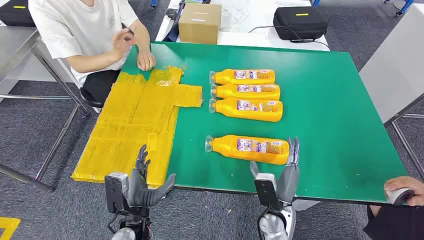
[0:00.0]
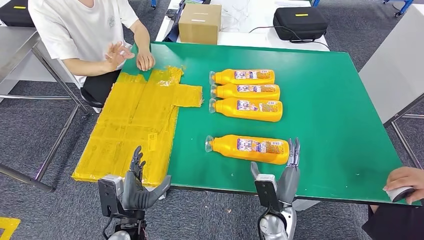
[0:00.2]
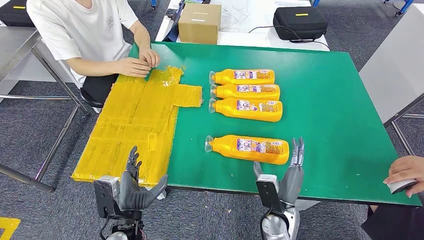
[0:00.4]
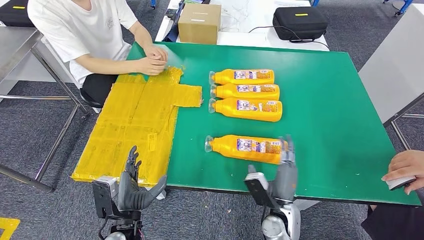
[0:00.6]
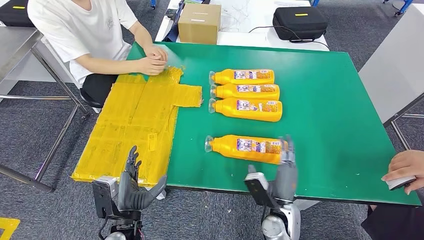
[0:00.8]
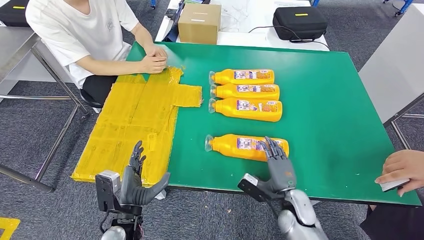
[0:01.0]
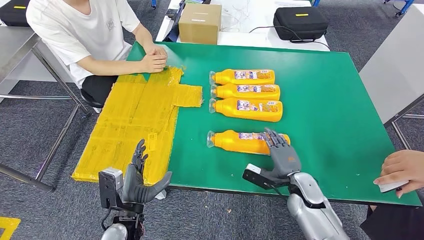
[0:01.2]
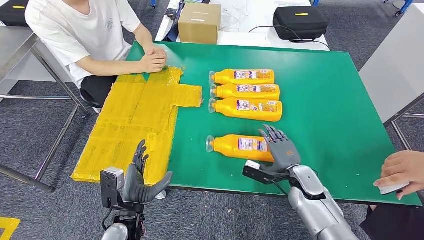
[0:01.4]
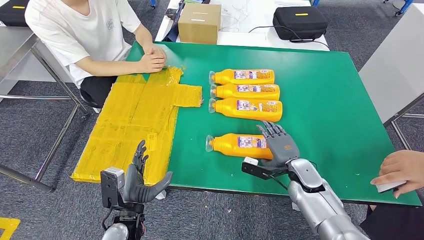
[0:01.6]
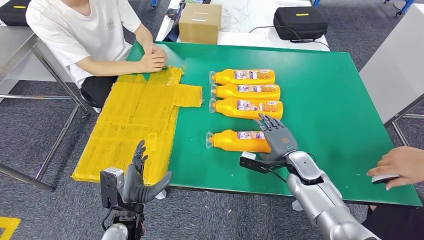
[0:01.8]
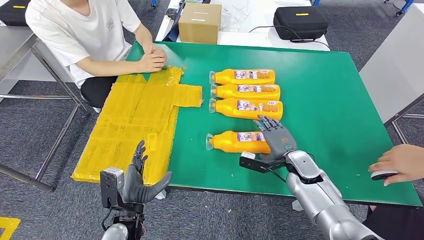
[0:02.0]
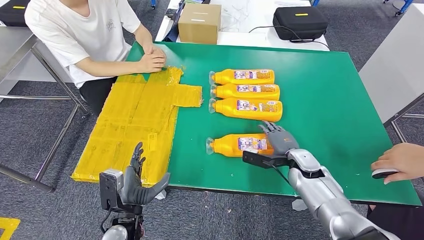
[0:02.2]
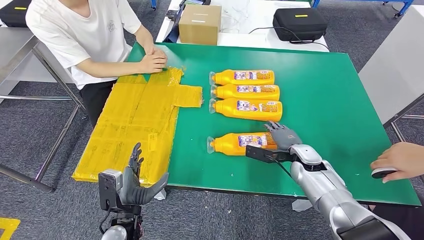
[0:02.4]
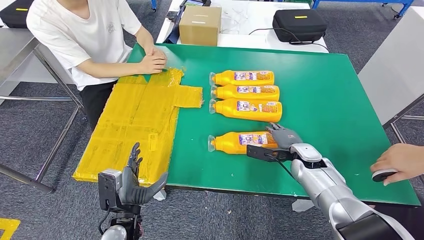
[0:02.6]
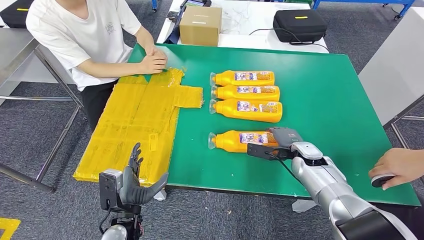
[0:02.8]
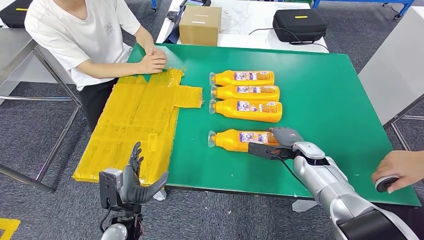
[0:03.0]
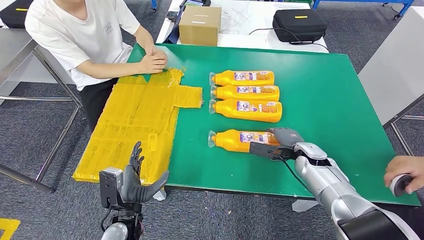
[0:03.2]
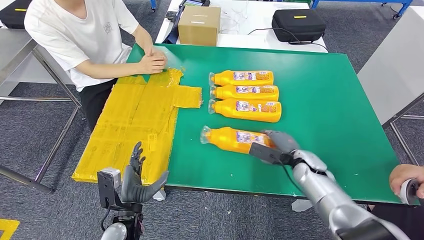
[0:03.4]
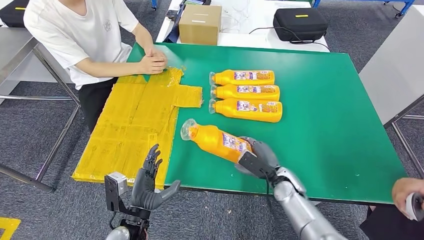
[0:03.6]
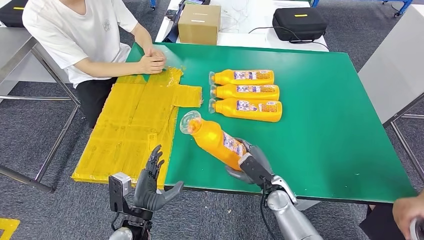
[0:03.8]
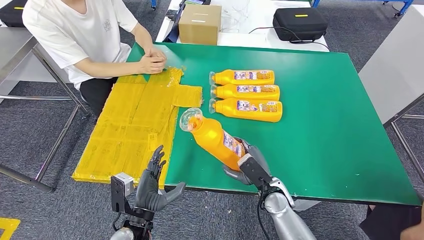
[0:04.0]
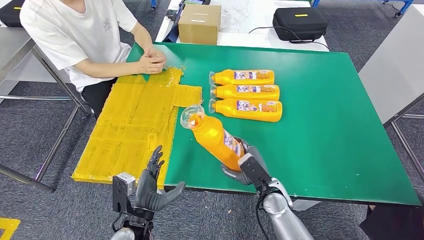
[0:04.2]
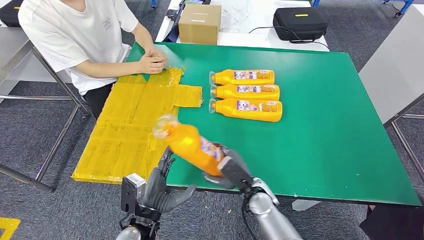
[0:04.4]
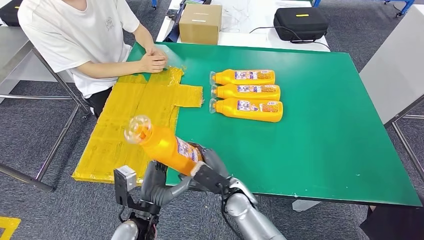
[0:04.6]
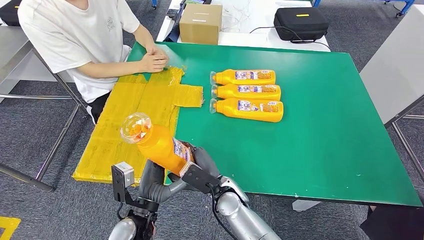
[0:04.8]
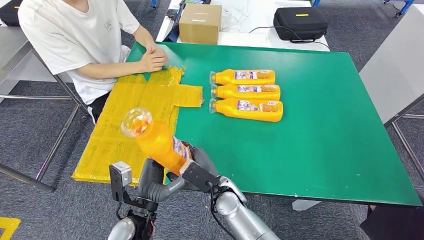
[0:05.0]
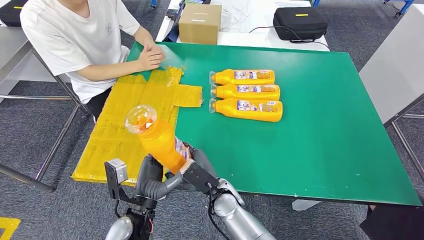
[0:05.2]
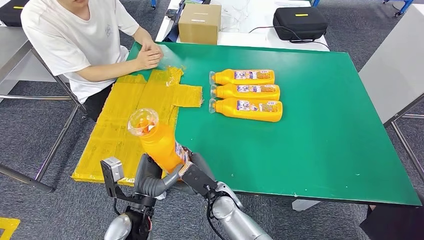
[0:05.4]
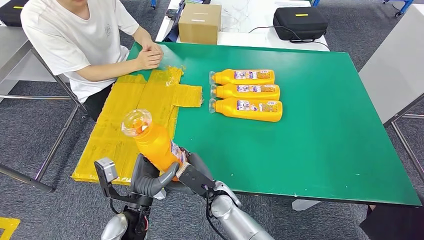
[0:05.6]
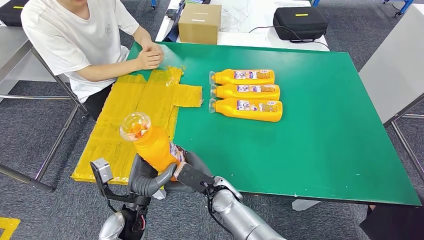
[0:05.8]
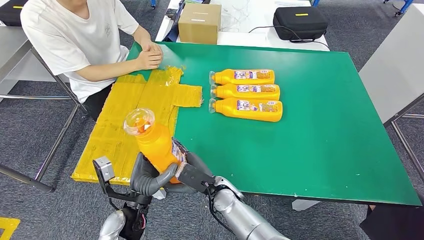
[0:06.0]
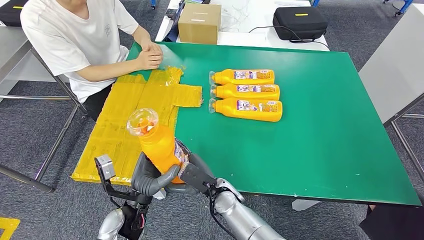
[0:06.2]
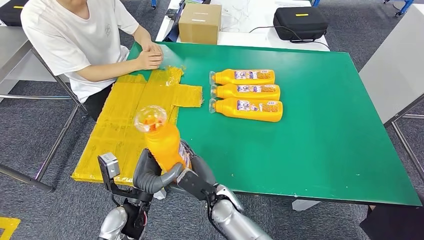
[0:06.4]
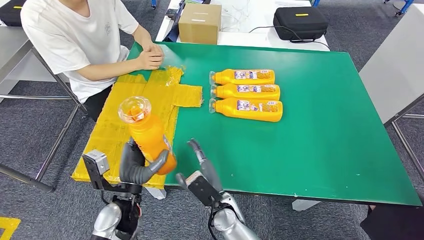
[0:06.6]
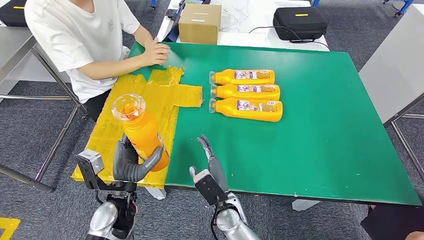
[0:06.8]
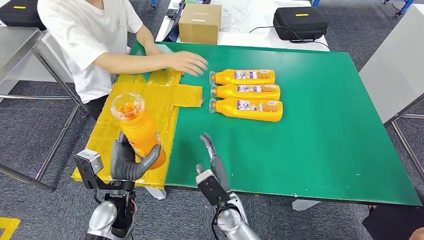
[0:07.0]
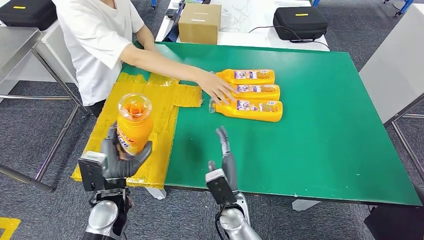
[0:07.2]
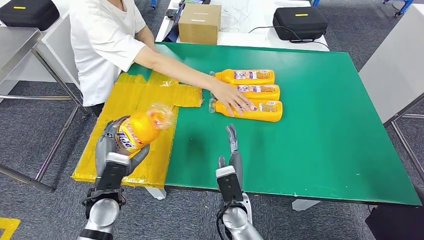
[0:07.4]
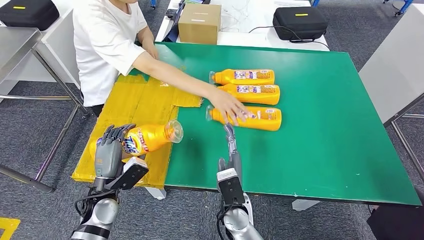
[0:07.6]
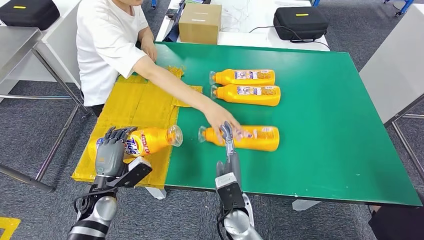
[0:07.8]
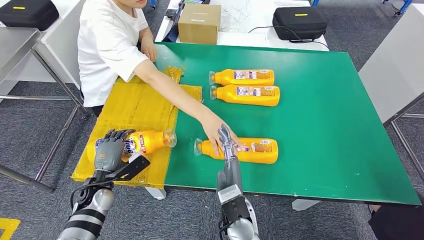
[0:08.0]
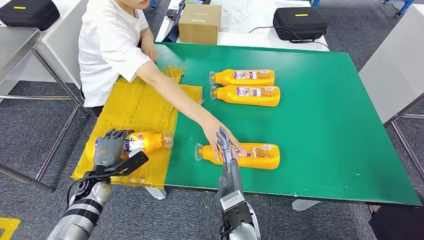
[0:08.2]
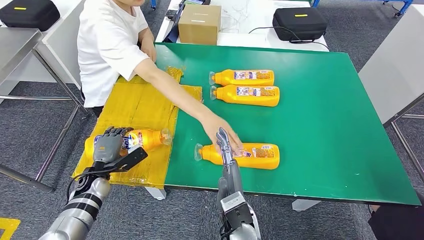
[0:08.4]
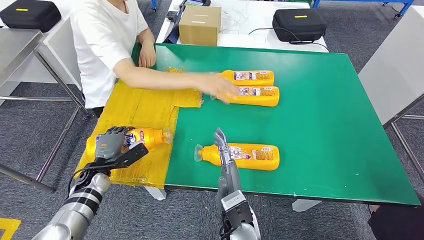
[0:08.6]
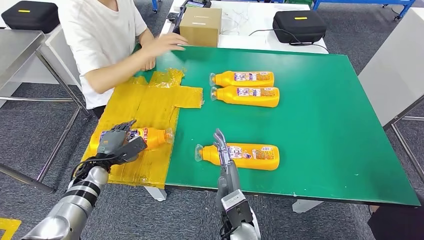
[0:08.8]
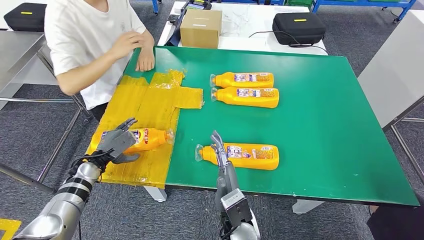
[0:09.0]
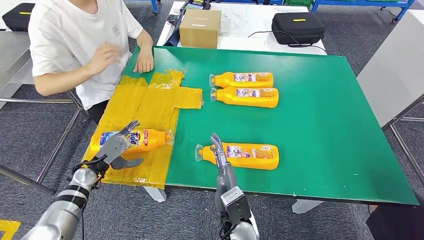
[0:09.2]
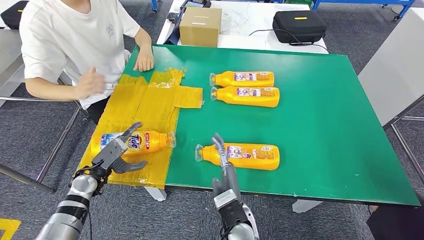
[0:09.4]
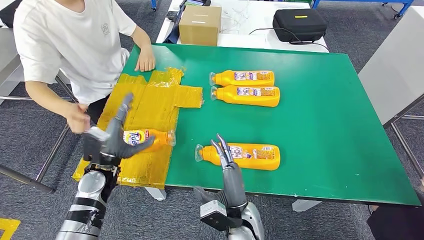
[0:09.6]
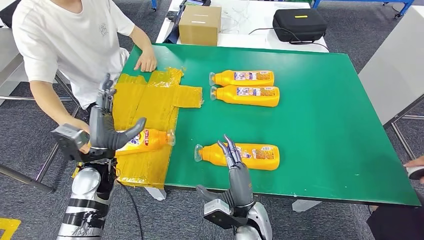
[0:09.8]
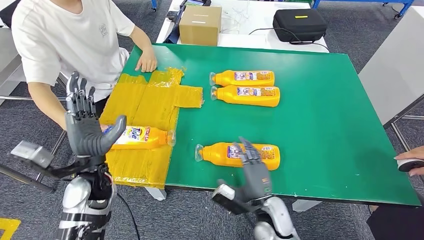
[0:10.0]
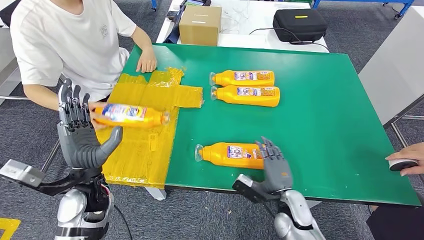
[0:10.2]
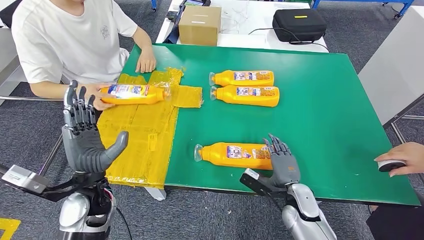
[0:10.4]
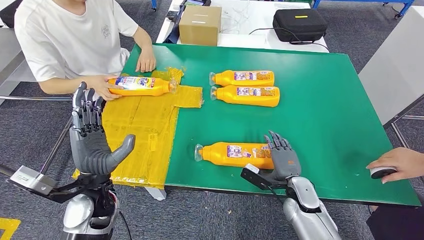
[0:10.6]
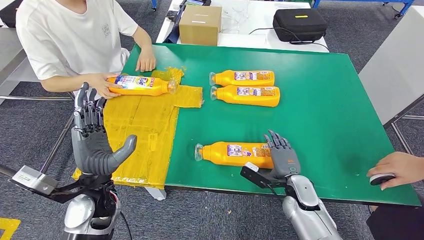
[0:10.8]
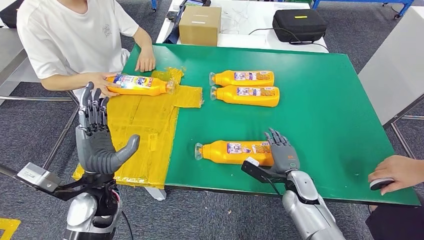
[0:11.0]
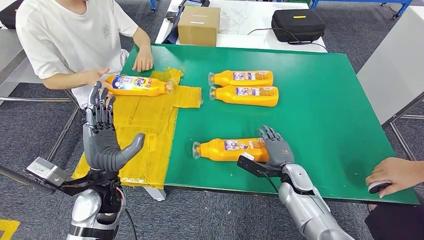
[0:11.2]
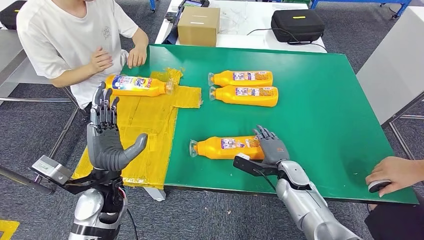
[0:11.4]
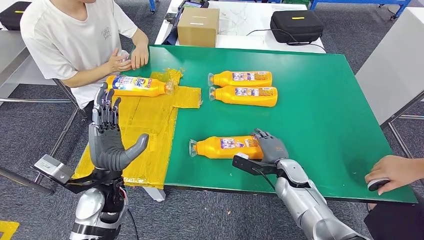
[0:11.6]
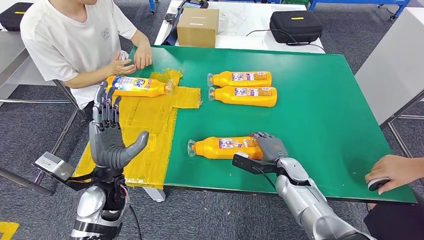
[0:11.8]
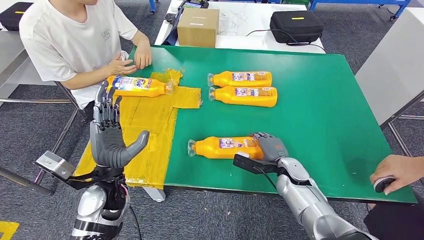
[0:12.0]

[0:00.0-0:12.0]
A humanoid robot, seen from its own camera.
Step, 0.0 to 5.2 s: Take the bottle from the table.
Step, 5.4 to 8.8 s: Flip the bottle to face forward.
1.6 to 3.0 s: The right hand goes about 5 cm forward.
4.4 to 6.0 s: The right hand moves to the left, some 10 cm.

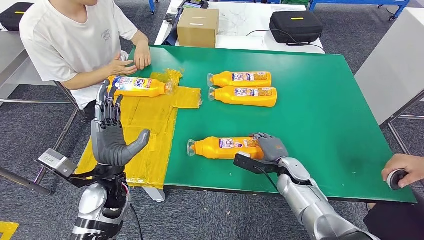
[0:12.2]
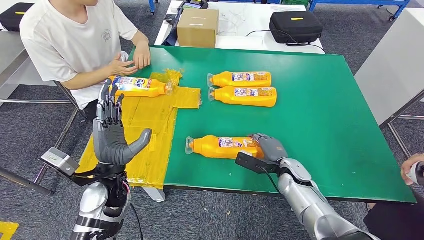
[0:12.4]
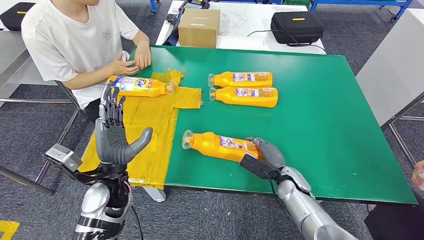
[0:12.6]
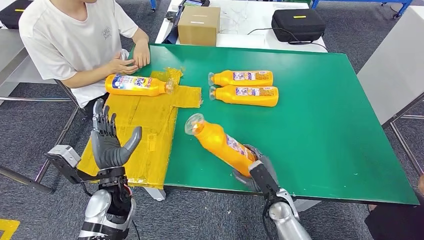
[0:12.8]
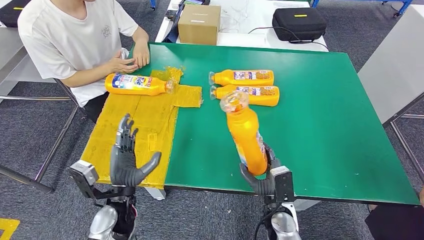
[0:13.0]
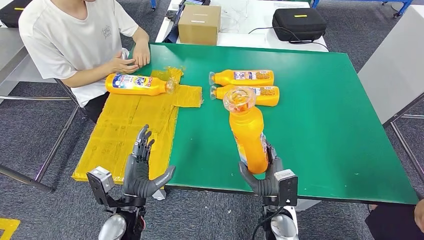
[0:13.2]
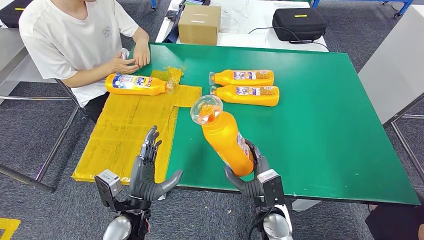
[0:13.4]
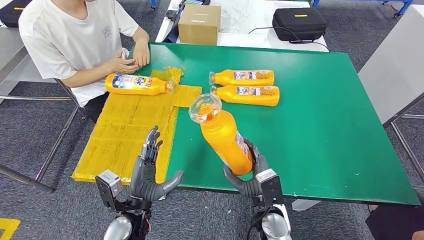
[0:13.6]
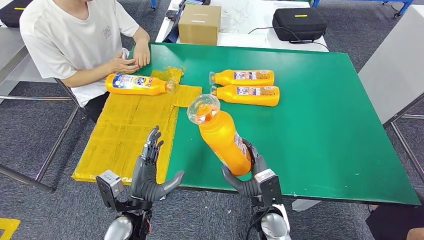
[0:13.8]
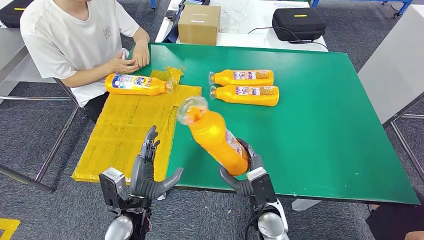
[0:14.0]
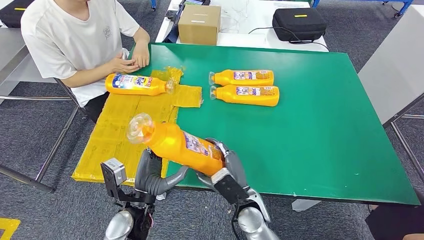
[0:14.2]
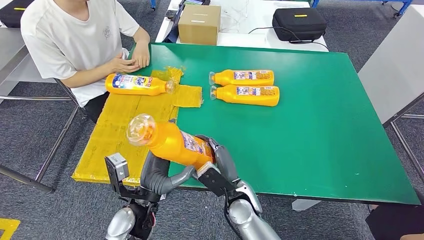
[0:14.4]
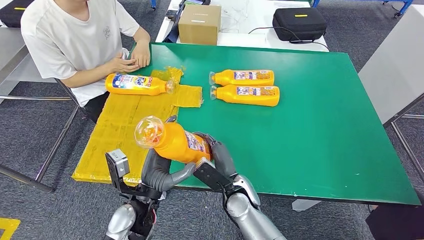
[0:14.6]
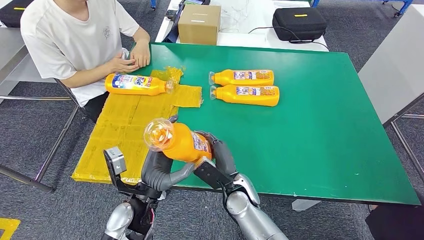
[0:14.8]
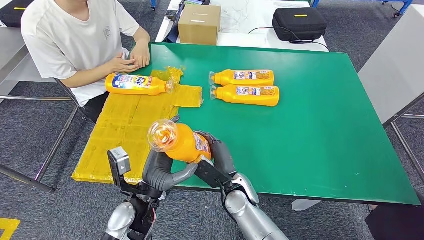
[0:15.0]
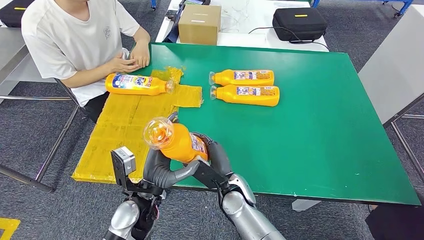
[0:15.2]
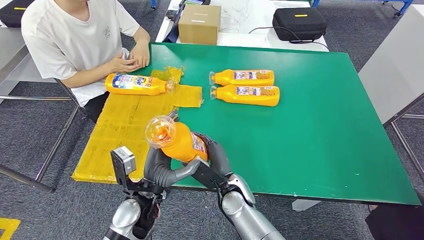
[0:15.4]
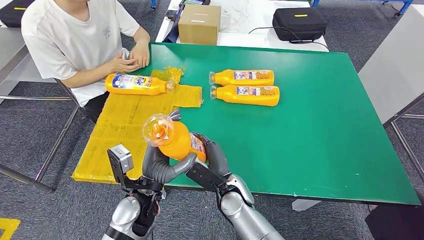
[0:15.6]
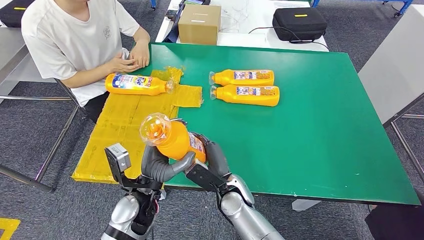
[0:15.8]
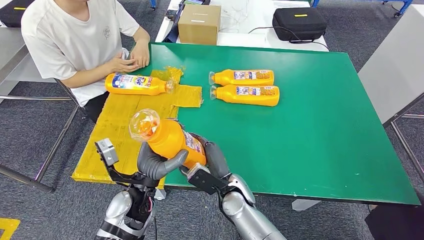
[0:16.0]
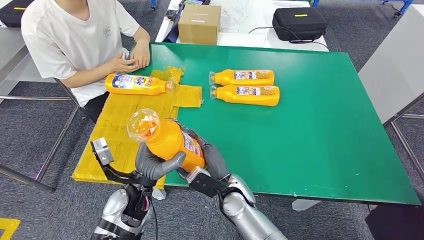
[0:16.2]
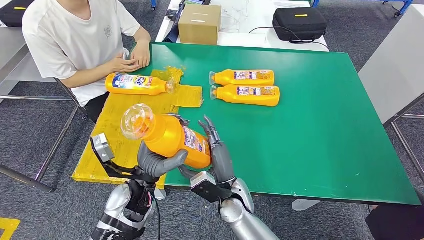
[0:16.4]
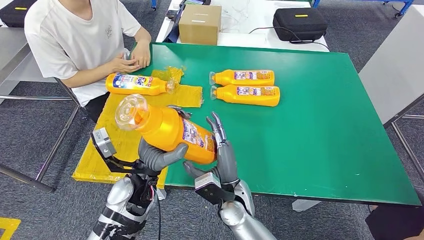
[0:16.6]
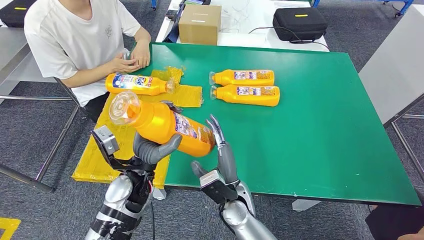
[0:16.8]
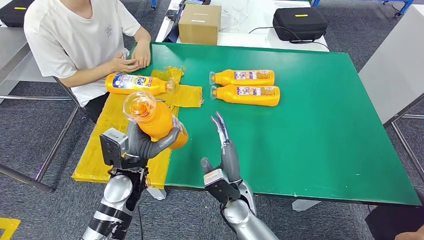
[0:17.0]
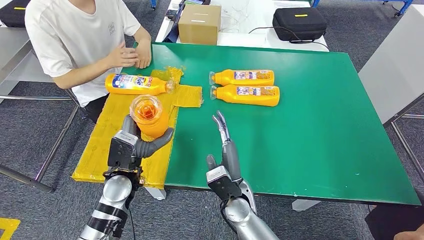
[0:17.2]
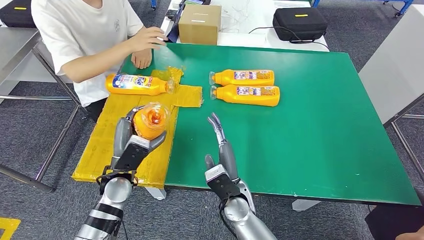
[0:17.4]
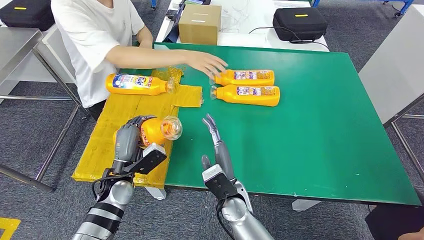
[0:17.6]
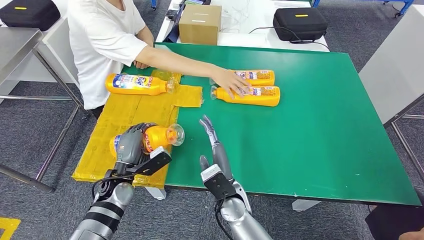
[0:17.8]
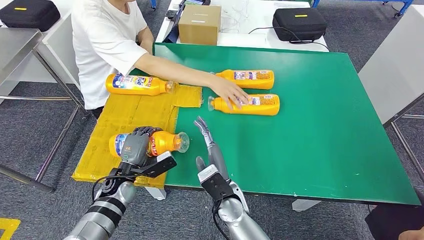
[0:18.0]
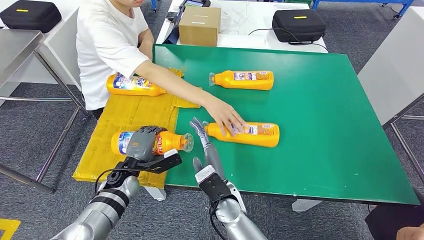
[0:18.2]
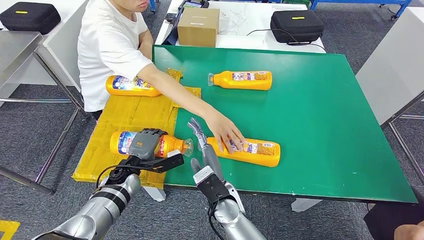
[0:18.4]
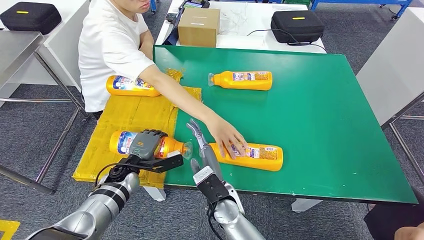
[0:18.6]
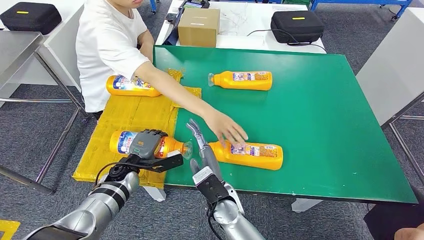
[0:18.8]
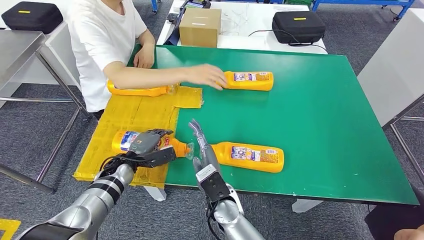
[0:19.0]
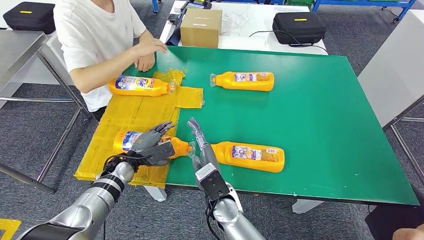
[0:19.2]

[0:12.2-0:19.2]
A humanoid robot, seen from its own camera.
Step, 12.2 to 14.6 s: Pick up the bottle from the table.
Step, 14.8 to 18.4 s: Flip the bottle to face forward.
13.6 to 15.0 s: The right hand shifts about 10 cm to the left and forward.
15.0 to 16.4 s: The hands move only a little.
16.4 to 17.8 s: The left hand goes about 10 cm to the left and downward.
